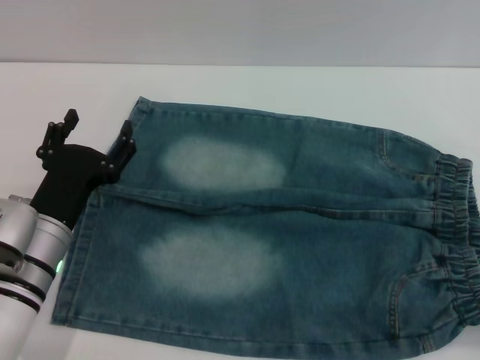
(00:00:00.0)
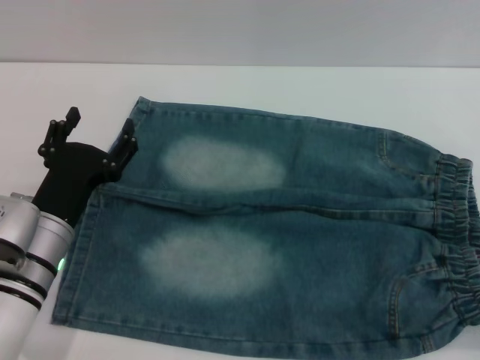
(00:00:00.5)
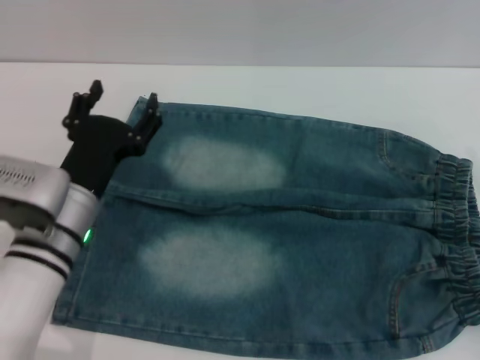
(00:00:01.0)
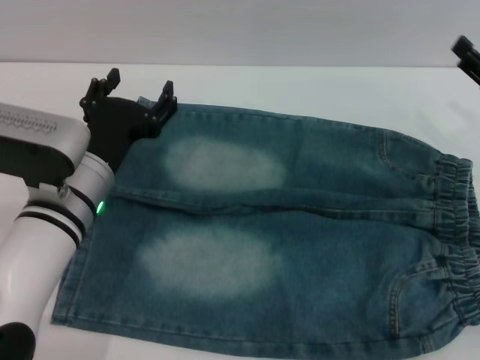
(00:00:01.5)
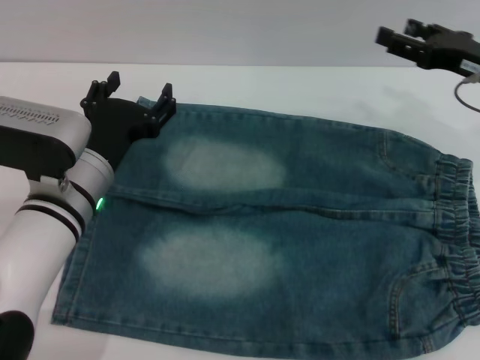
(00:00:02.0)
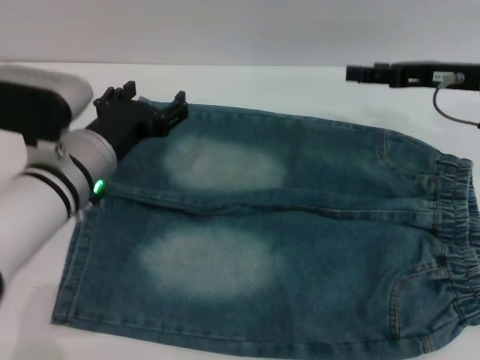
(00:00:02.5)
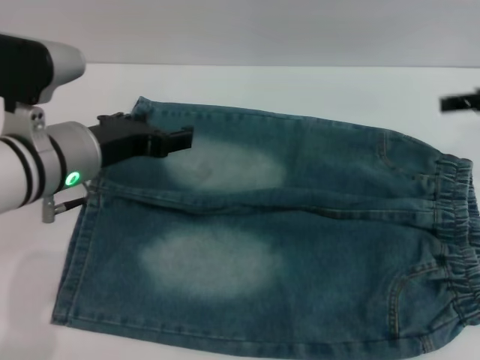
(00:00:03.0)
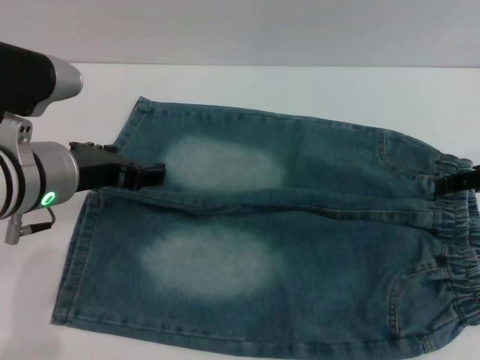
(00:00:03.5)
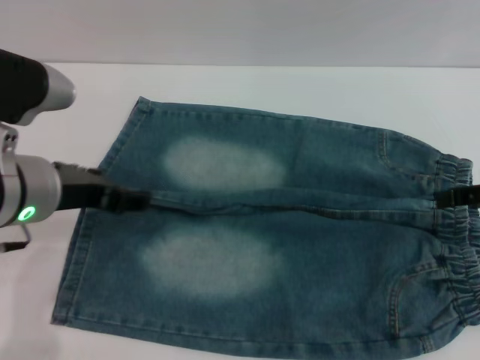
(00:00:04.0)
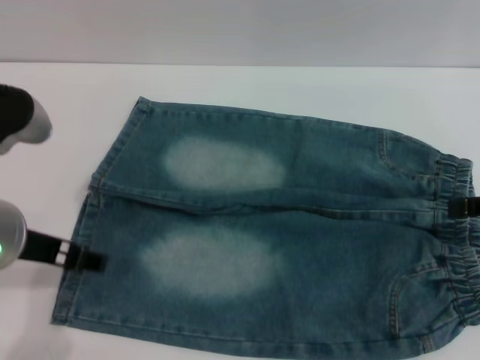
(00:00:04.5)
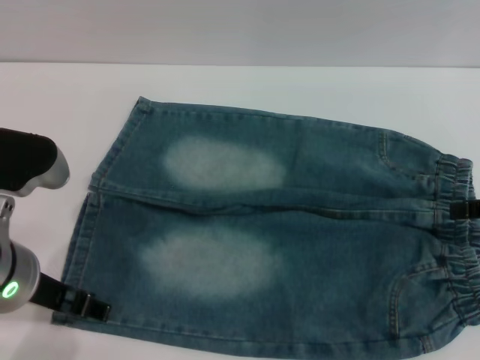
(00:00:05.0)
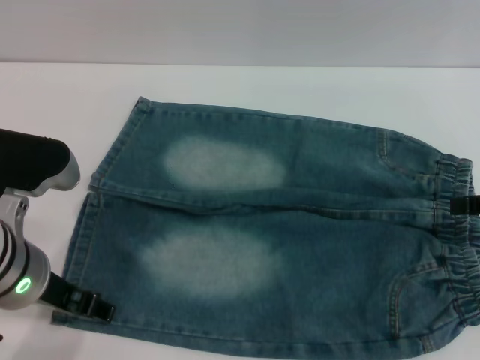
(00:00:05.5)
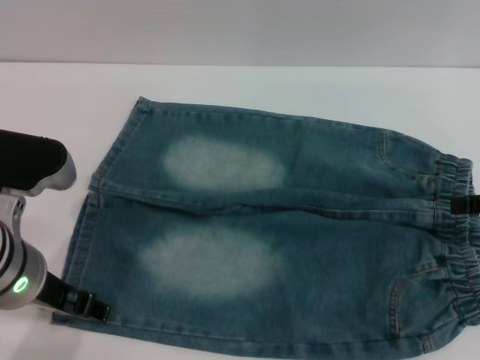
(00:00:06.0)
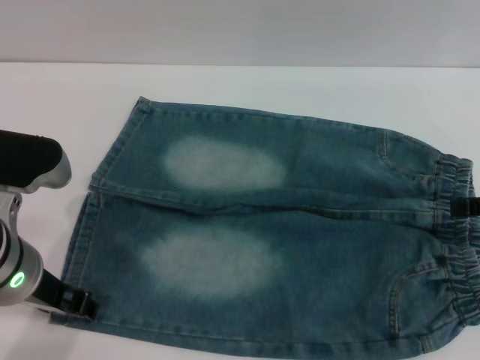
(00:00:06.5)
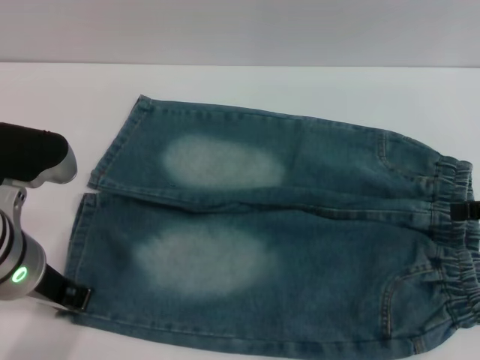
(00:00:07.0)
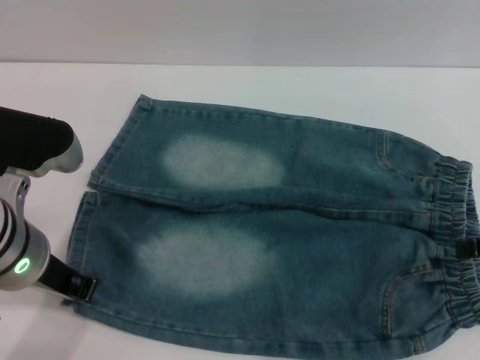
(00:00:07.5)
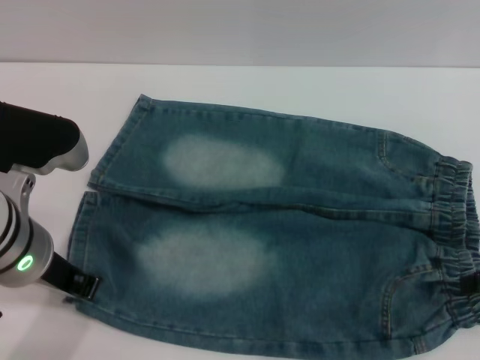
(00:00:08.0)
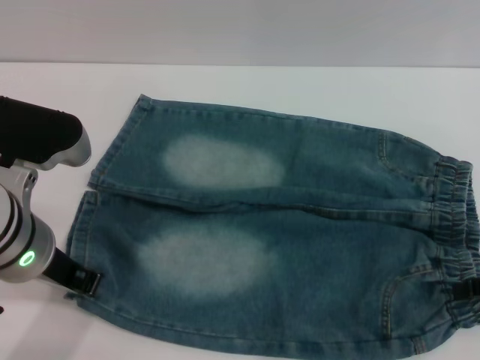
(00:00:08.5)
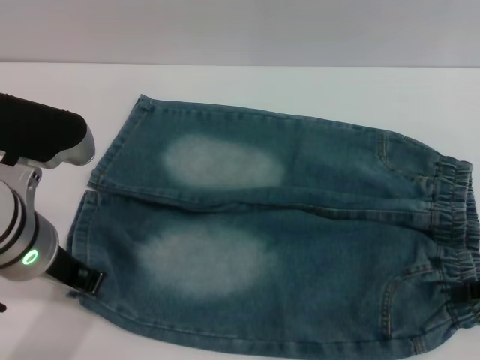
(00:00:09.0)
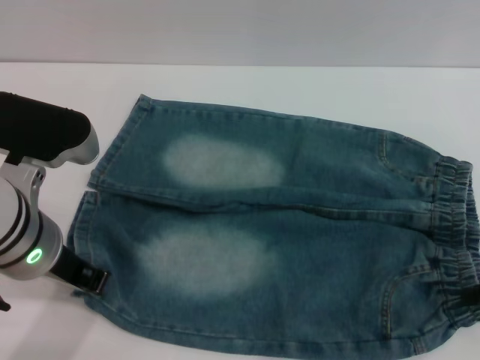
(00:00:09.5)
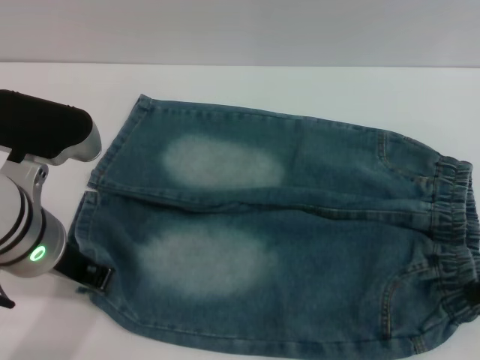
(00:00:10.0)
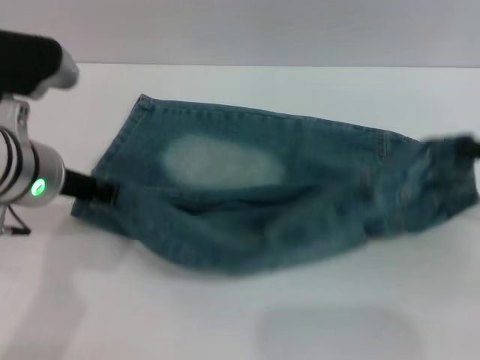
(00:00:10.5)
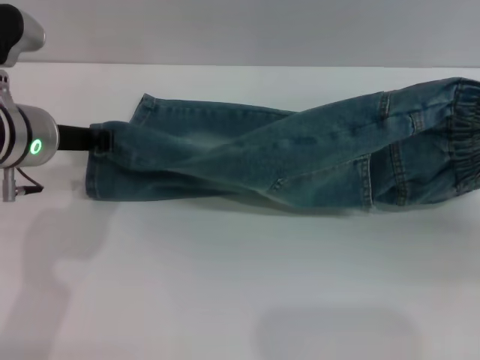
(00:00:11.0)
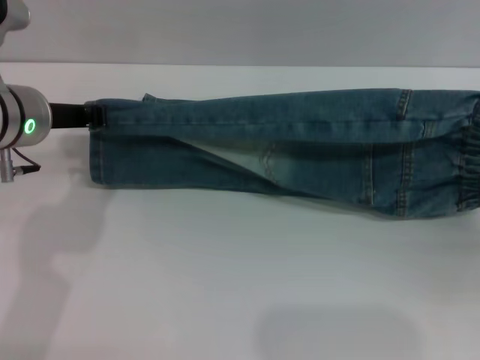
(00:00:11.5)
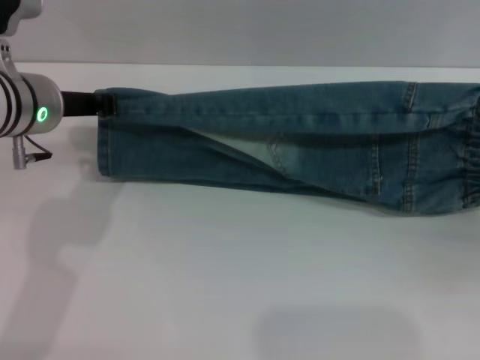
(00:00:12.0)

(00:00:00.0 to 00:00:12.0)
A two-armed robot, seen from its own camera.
00:00:00.0 - 00:00:02.0: The right gripper travels forward and upward by about 20 cm, while the left gripper moves approximately 10 cm.
00:00:02.0 - 00:00:04.0: The left gripper shifts some 10 cm upward. Meanwhile the right gripper is displaced backward and upward by about 15 cm.
00:00:06.0 - 00:00:08.0: The left gripper closes.
00:00:10.0 - 00:00:12.0: The left gripper goes about 10 cm forward. The right gripper shifts by about 5 cm.
